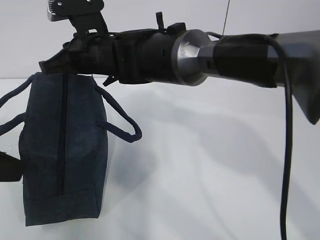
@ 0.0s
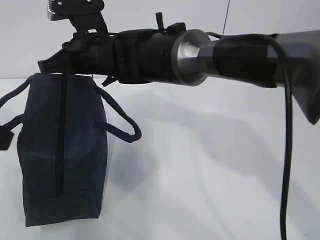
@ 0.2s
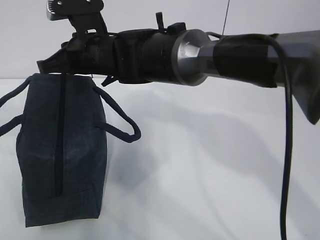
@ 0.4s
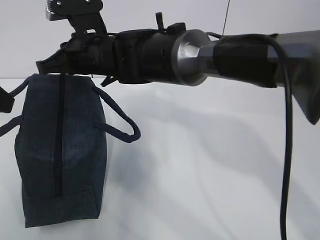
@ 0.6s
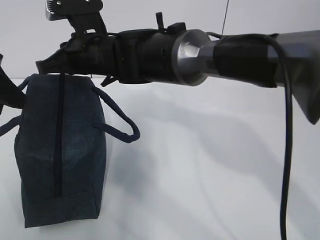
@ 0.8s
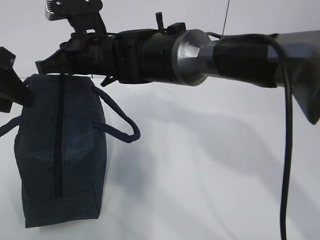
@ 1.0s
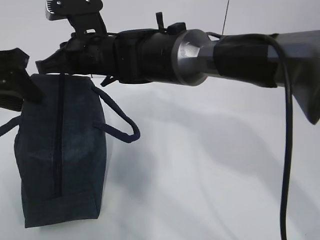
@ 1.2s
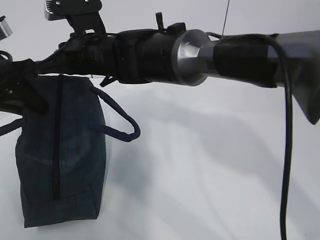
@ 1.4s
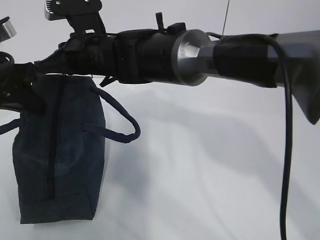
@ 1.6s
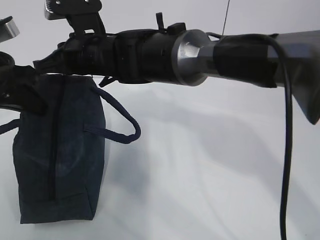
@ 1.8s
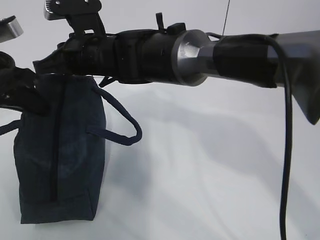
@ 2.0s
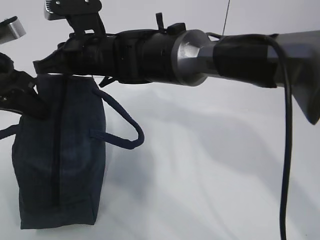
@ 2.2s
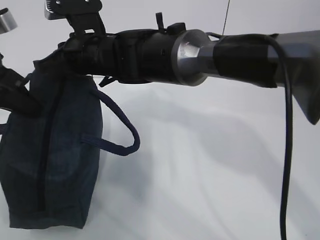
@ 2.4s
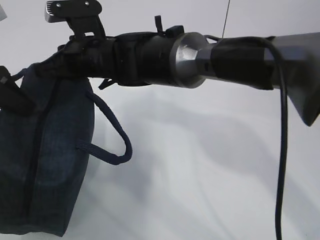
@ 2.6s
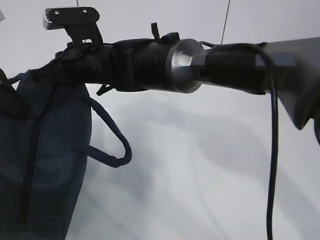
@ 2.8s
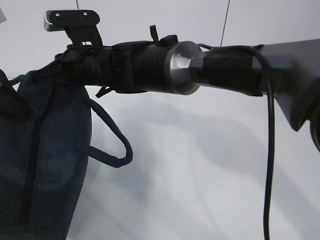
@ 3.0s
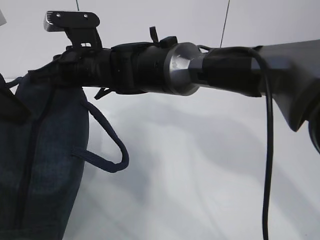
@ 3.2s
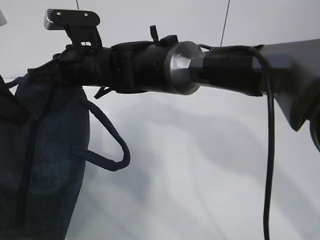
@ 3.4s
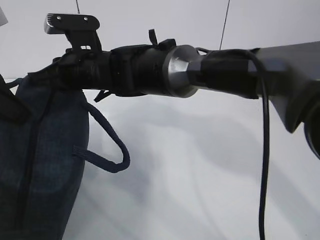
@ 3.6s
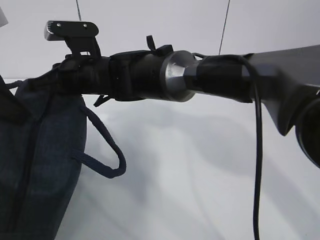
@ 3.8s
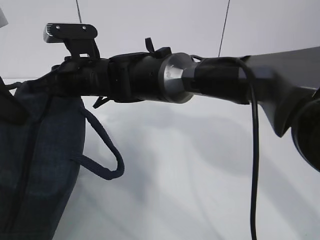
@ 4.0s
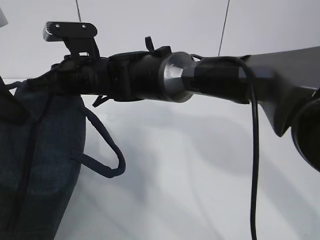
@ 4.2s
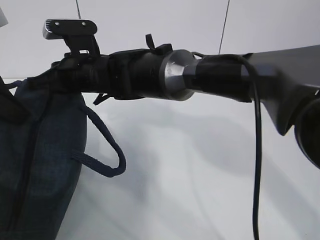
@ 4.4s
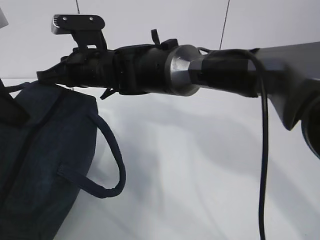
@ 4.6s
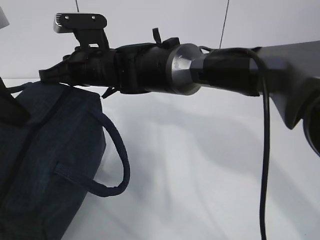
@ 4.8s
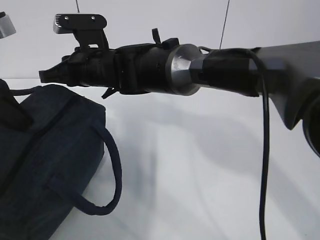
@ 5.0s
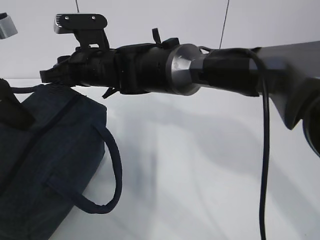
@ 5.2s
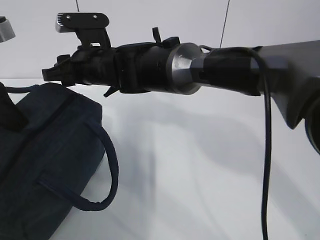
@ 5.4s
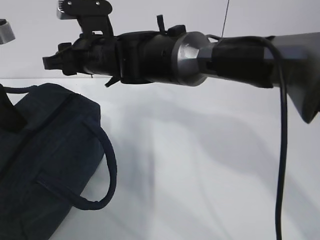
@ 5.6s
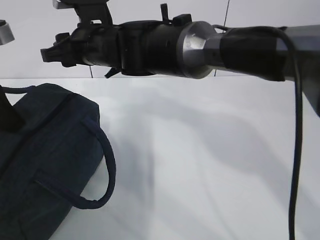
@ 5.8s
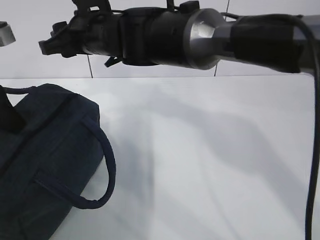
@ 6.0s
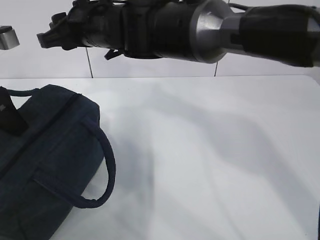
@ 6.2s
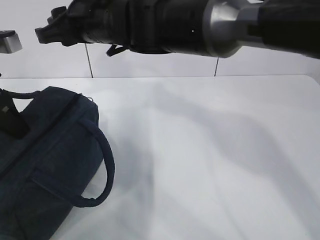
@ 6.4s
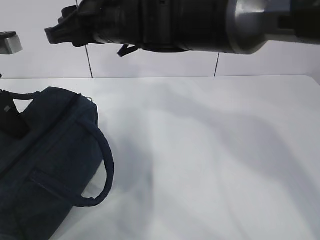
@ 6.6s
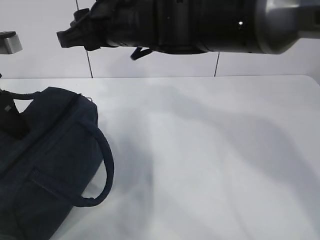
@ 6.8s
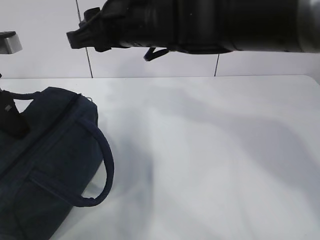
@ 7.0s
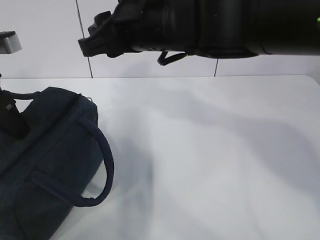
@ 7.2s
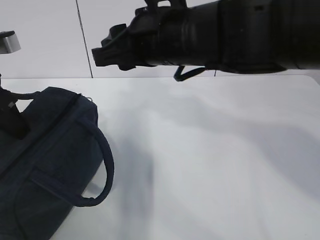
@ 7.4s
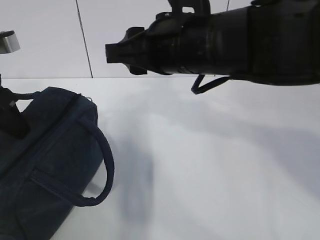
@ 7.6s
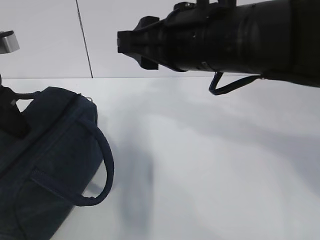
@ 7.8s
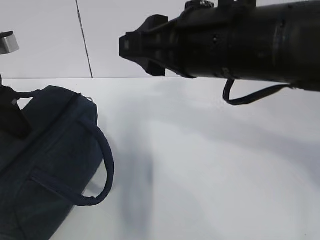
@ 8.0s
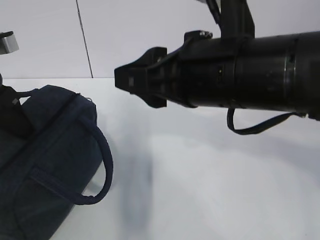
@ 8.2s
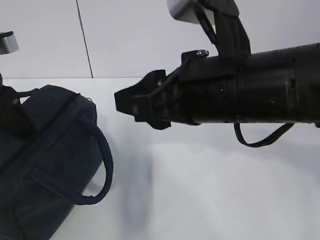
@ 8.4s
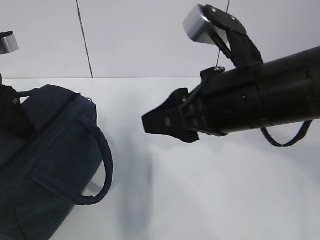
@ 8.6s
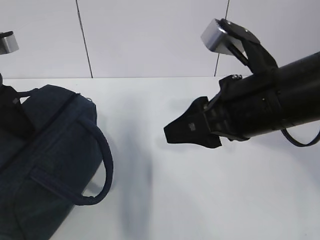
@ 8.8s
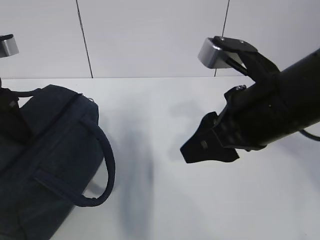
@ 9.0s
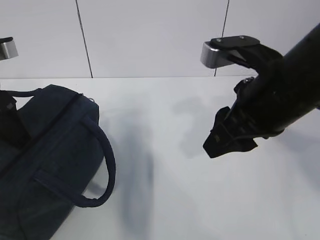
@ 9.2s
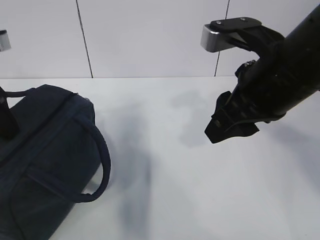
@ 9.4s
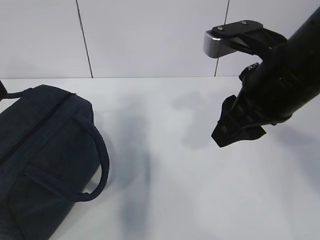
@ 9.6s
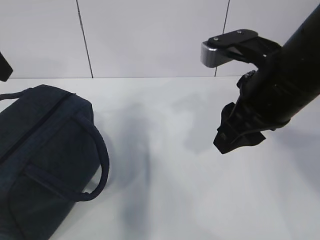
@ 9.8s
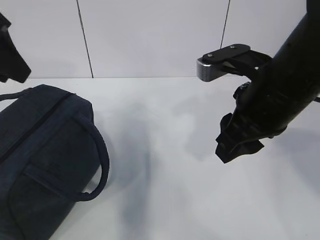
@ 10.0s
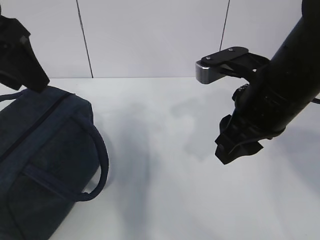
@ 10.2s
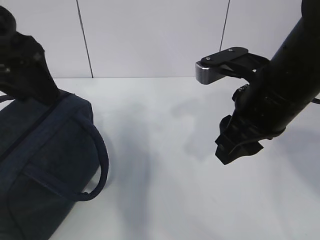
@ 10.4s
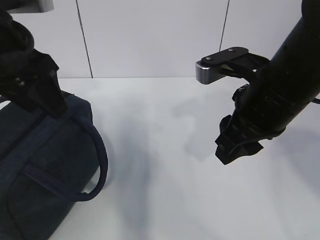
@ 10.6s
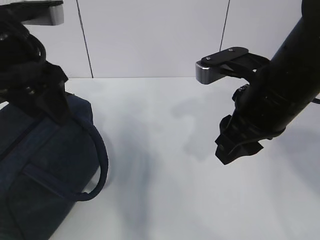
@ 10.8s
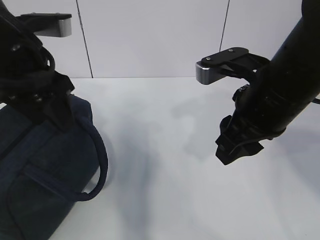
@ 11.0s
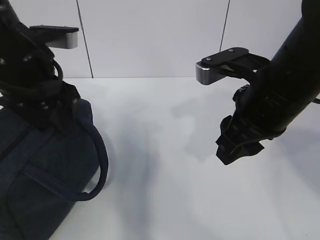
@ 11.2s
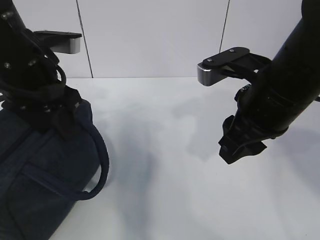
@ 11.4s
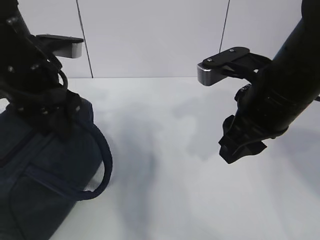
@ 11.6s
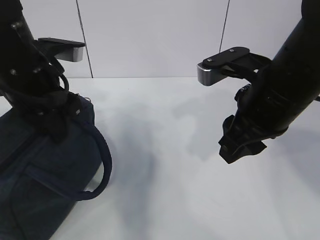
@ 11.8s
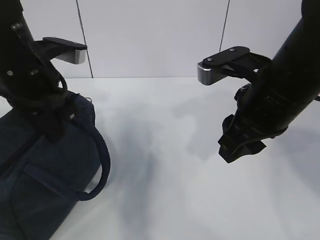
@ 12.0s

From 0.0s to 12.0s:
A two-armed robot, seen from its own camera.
From 0.0s to 1.6s: The left gripper travels forward by roughly 15 cm, and closes.
From 1.6s to 3.0s: The left gripper moves some 5 cm.
From 3.0s to 4.4s: The grippers make only small movements.
From 4.4s to 6.0s: The right gripper travels upward by some 5 cm, and opens its fingers.
From 6.0s to 7.6s: The right gripper shifts approximately 15 cm backward and to the right.
From 7.6s to 9.0s: The left gripper opens, while the right gripper goes approximately 10 cm to the right and backward.
From 9.0s to 10.4s: The left gripper heads upward and to the right, covering roughly 10 cm.
From 10.4s to 12.0s: The left gripper is displaced downward by approximately 10 cm, and closes.

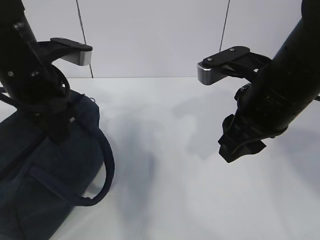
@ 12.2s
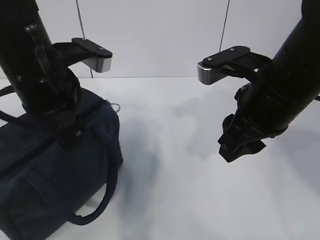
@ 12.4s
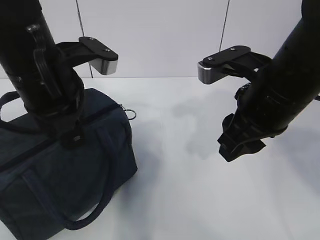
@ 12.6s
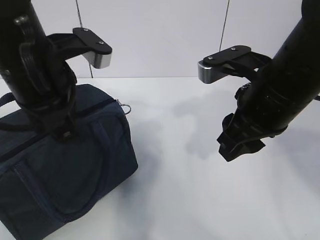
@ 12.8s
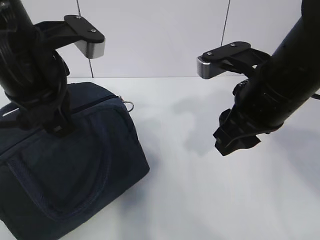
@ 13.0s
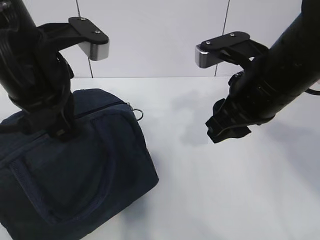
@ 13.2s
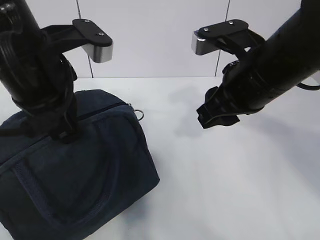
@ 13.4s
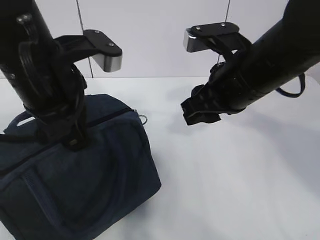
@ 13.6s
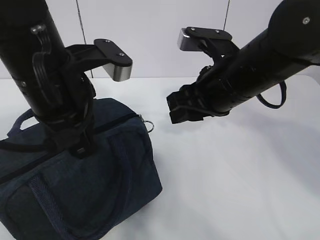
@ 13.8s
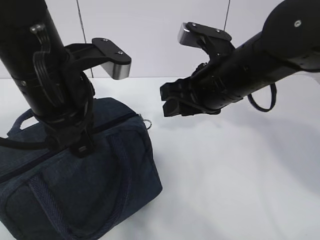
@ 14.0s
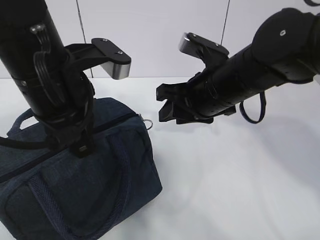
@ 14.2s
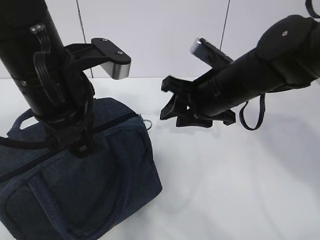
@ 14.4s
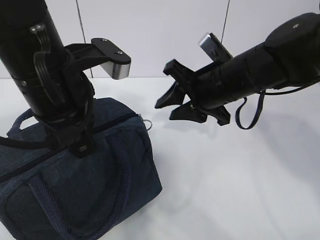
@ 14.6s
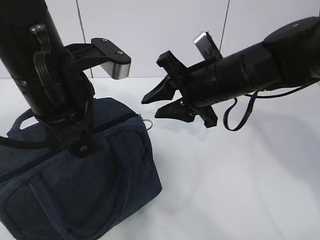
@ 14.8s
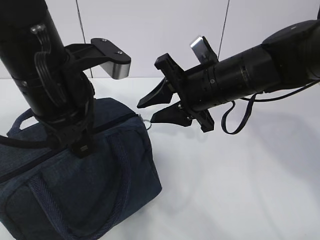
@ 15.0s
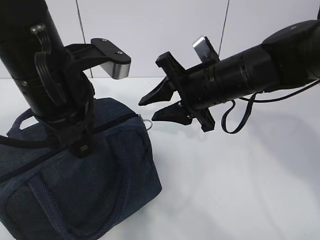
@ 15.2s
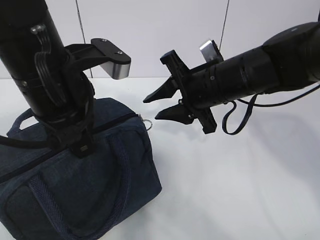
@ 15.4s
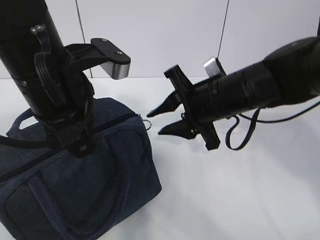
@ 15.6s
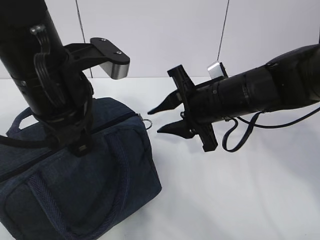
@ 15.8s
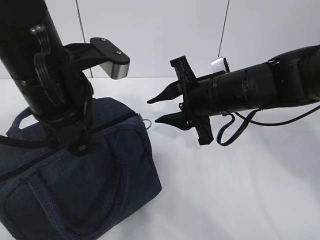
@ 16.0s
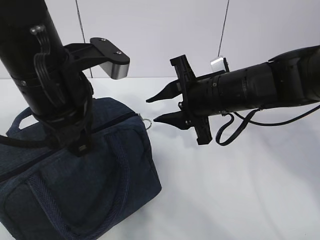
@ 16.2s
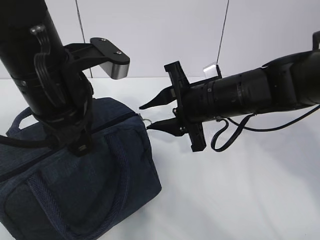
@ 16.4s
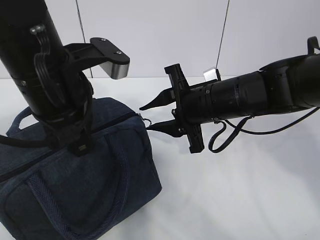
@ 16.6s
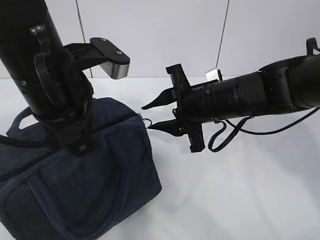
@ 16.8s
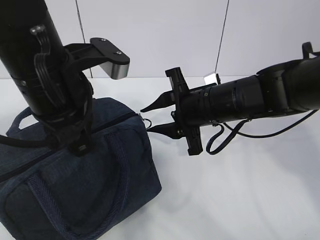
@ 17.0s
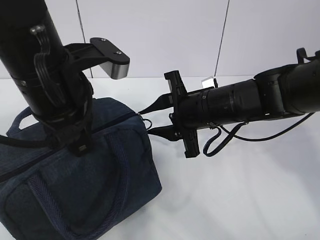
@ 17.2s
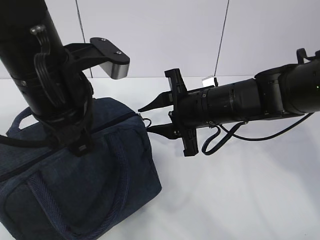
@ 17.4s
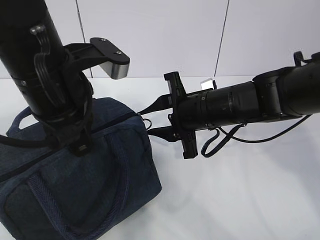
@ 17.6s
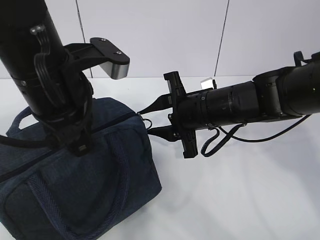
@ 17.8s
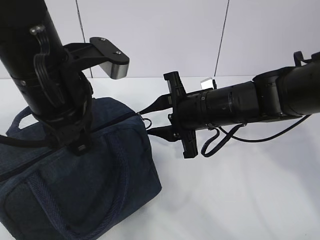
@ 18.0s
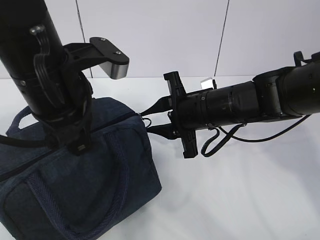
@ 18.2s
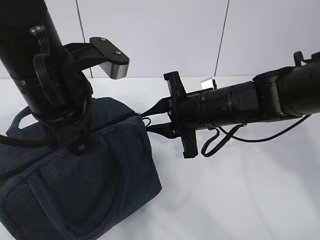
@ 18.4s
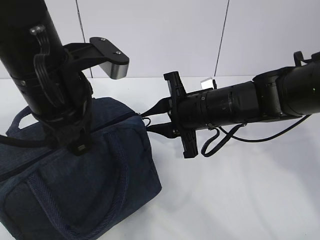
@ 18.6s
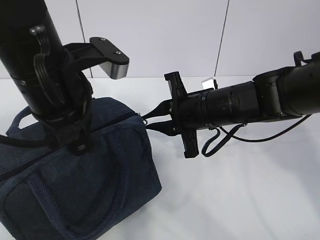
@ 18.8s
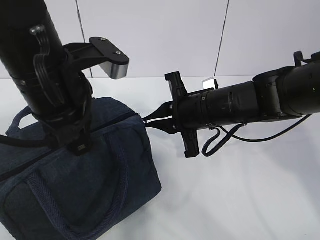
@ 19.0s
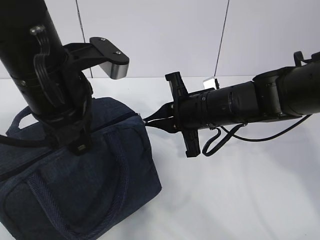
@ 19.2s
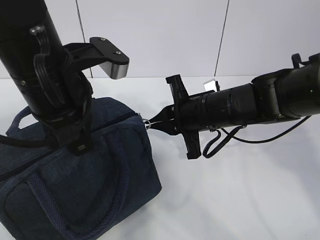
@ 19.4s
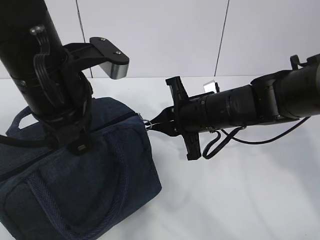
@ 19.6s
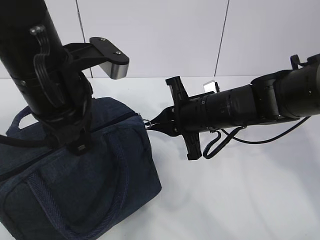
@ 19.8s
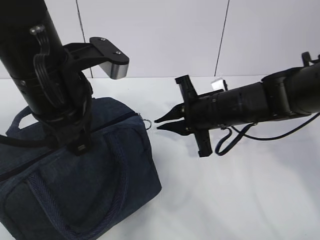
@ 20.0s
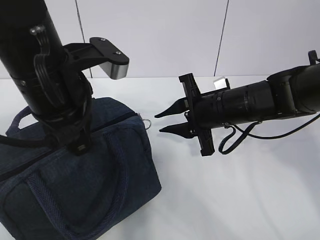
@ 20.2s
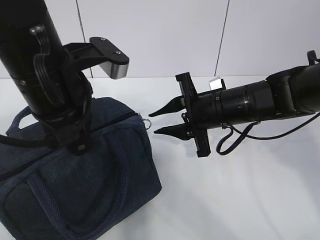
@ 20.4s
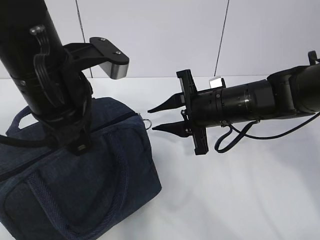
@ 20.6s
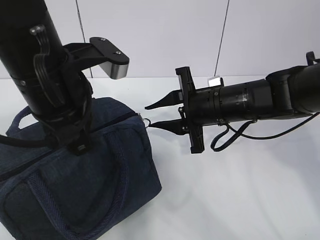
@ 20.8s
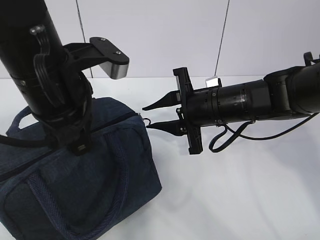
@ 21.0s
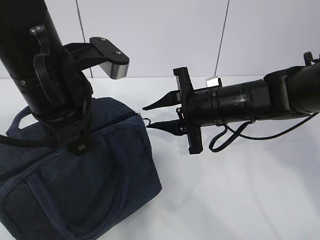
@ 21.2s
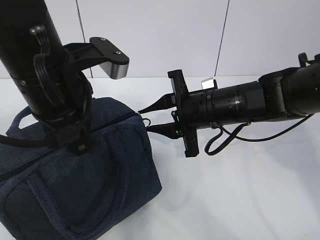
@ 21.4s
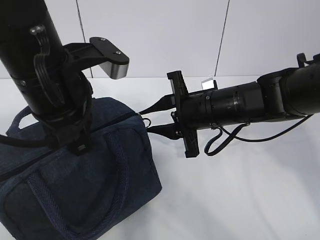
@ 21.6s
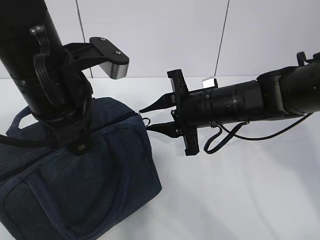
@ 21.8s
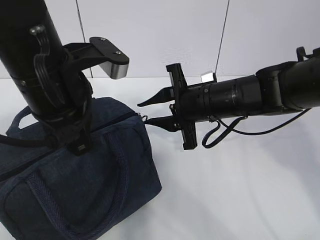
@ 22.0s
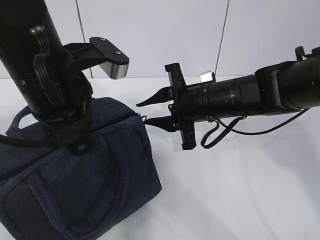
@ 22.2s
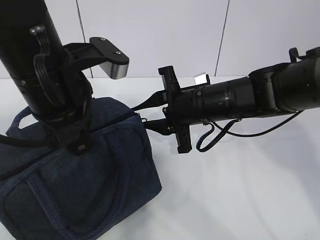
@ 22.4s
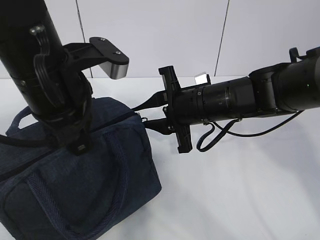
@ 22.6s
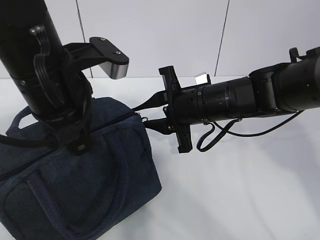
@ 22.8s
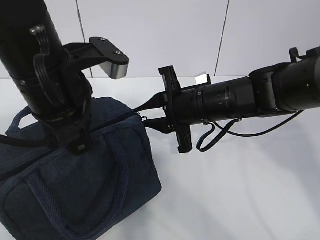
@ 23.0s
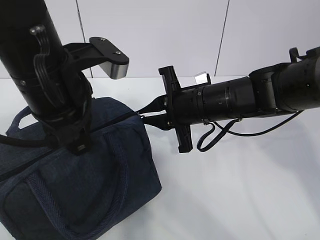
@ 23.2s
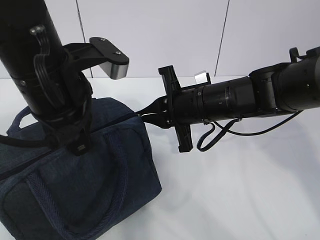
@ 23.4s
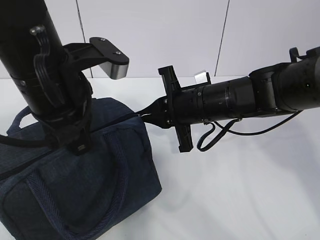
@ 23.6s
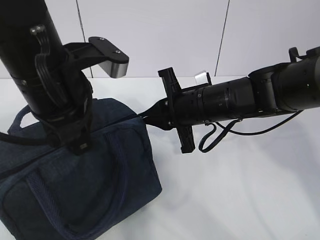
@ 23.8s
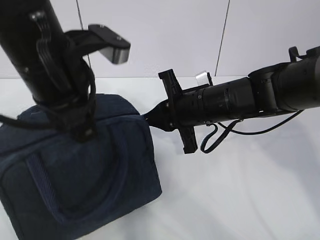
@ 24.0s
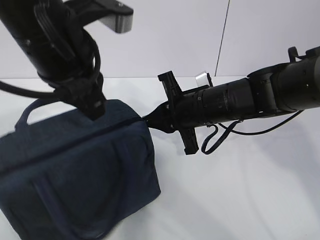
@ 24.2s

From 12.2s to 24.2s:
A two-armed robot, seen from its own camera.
Step, from 13.4s to 15.2s: Grab the lunch bag with your left hand.
From 12.2s to 13.8s: The left gripper shifts by approximately 5 cm. Meanwhile the right gripper moves some 5 cm.
From 16.6s to 18.2s: The grippers make only small movements.
From 18.2s to 19.8s: The right gripper closes up.
From 19.8s to 21.2s: The right gripper opens up.
From 21.2s to 22.6s: The grippers stay close to where they were, moving slightly.
From 22.6s to 24.2s: The right gripper closes.
